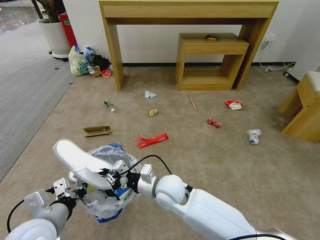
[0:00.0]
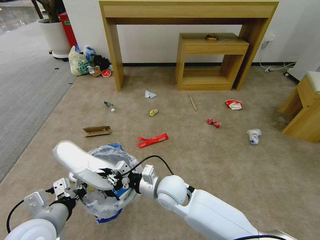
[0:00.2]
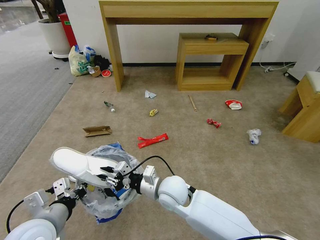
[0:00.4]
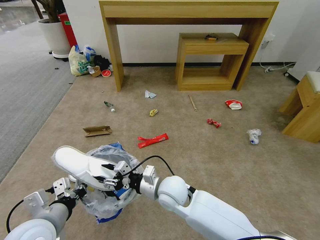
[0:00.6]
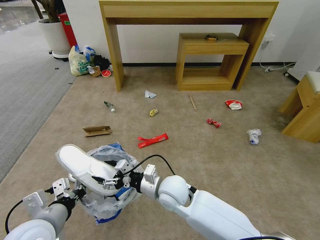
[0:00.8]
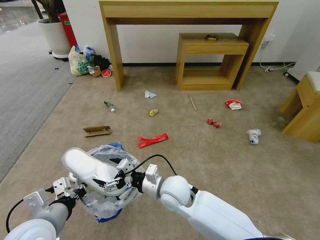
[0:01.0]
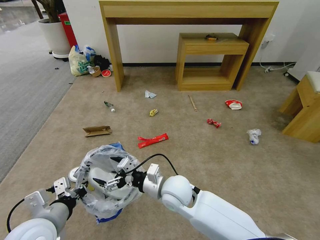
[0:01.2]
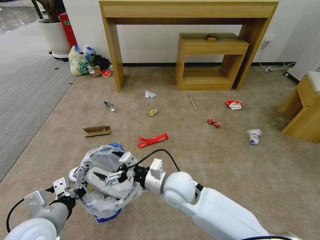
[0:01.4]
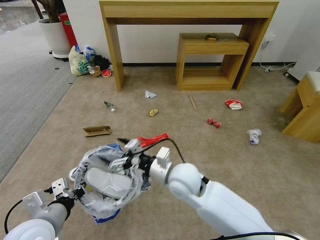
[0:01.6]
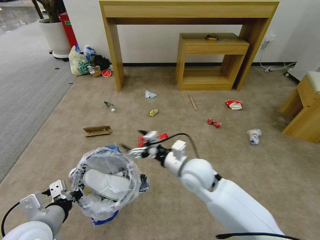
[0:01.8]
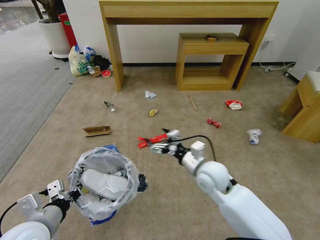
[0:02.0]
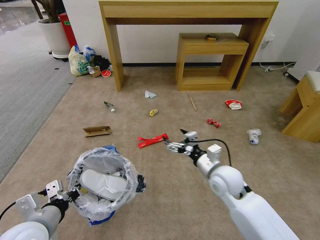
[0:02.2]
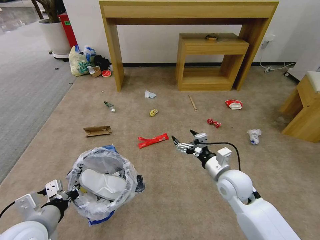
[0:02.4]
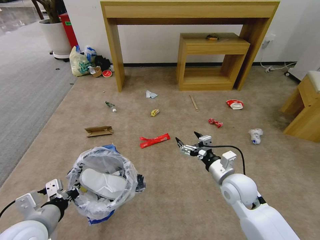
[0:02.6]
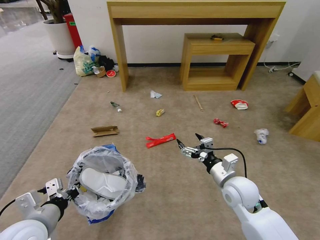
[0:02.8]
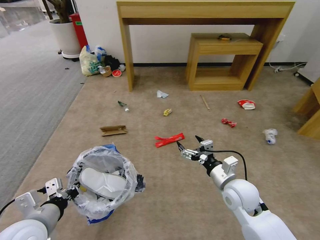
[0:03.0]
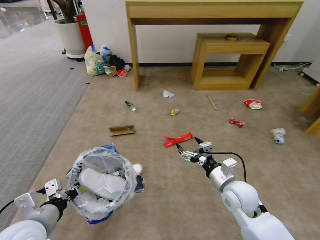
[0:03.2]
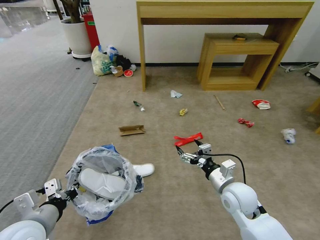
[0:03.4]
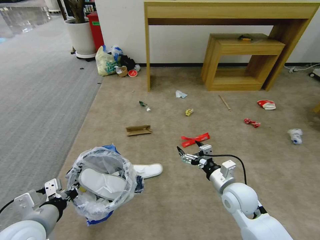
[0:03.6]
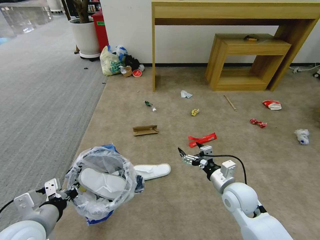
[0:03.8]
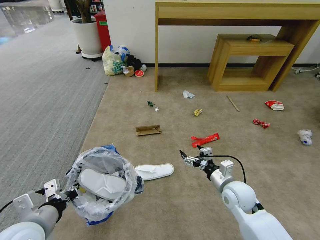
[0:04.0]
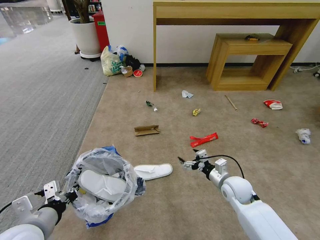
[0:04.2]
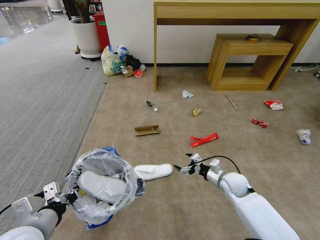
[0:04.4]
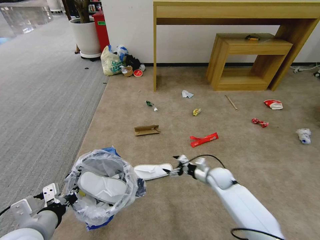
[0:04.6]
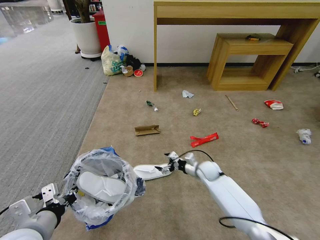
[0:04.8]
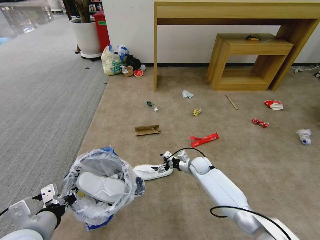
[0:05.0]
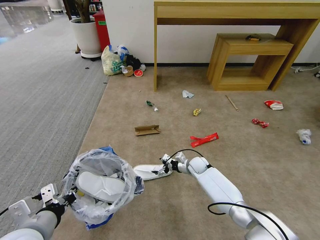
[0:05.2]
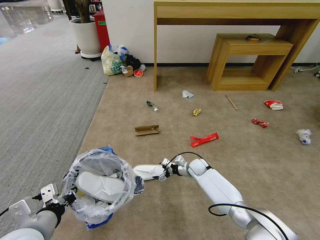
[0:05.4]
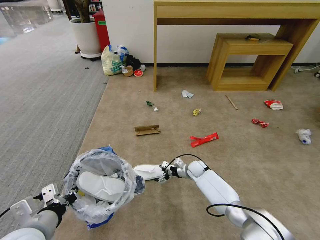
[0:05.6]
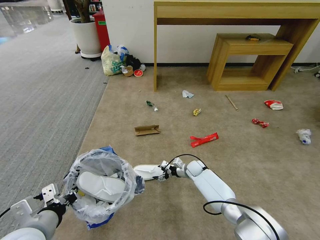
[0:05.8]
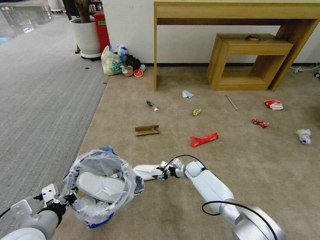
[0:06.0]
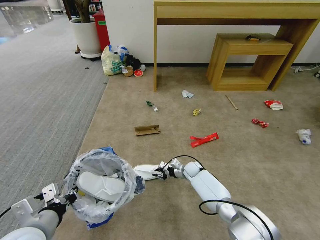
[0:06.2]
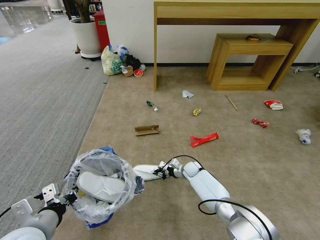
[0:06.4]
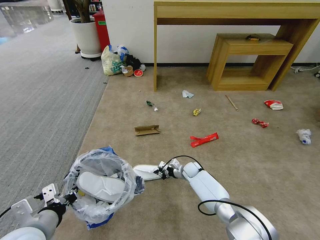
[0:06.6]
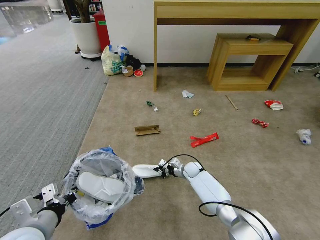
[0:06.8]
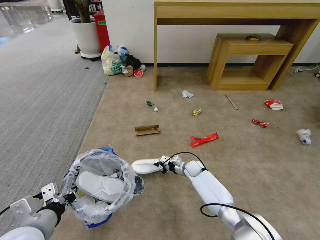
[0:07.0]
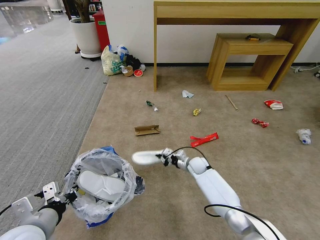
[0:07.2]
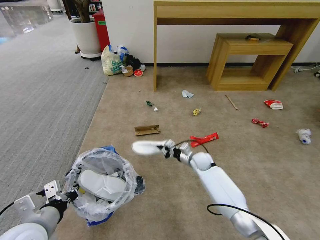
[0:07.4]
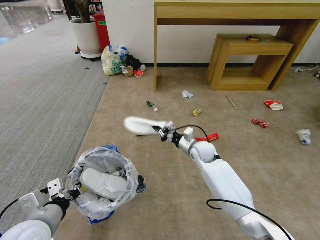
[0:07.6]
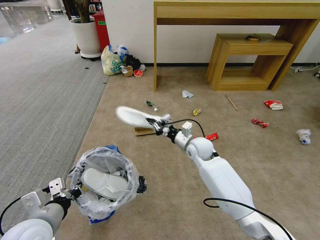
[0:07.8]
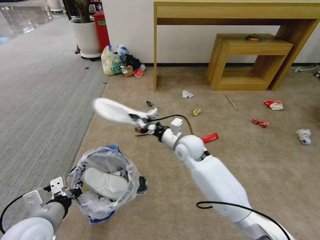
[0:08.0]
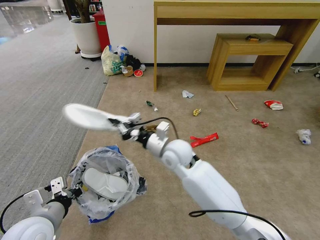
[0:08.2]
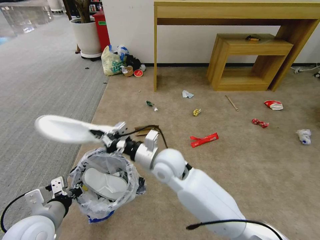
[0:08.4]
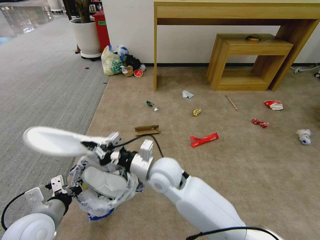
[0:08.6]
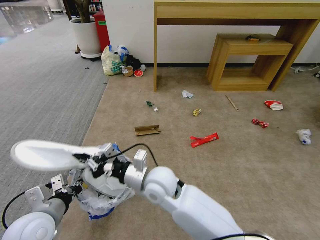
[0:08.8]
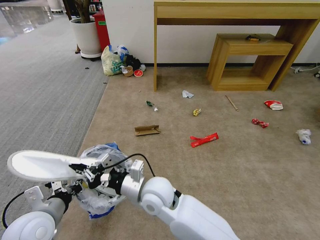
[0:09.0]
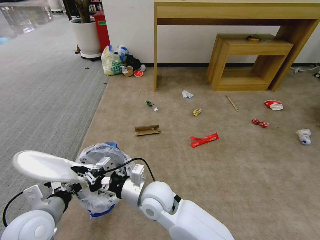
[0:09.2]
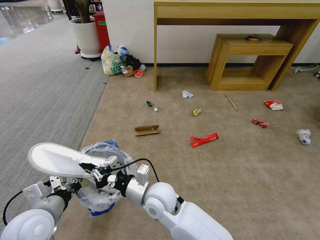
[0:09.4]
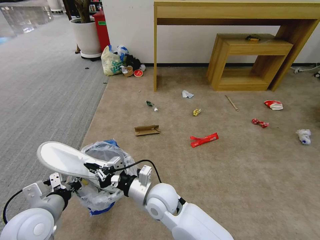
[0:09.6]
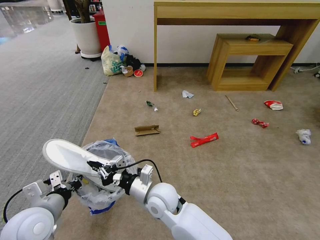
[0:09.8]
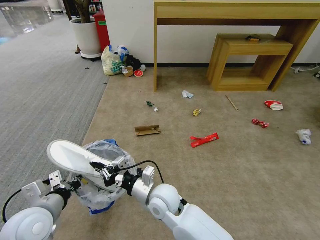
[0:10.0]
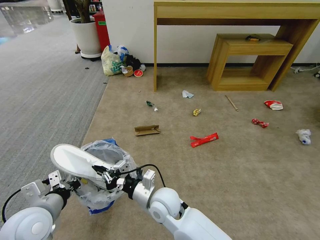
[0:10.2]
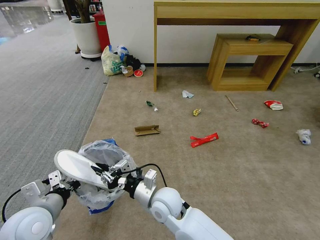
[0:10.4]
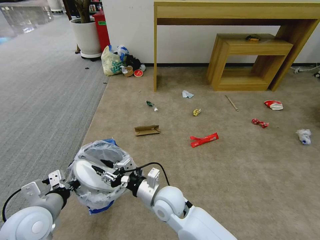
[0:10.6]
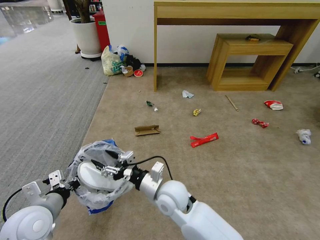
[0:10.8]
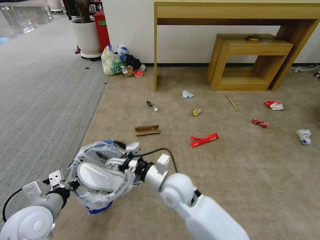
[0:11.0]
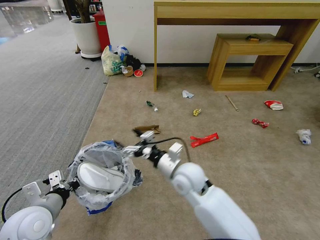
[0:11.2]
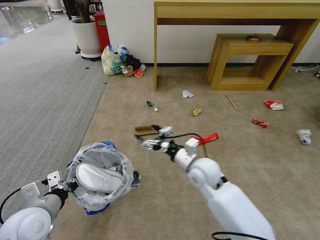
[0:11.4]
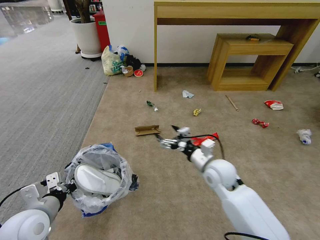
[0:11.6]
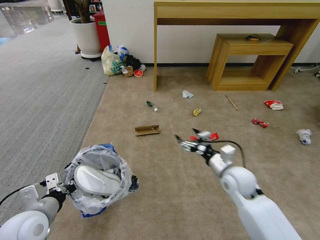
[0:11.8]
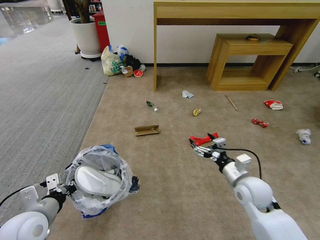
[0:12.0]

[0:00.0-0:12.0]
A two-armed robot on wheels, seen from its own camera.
Task of the whole recording: Pick up the trash bin and place the garbage on the floor into it.
0:00.0 to 0:01.6: The right gripper travels upward by roughly 5 cm, and opens its fingers.
0:01.6 to 0:03.0: The right gripper shifts approximately 20 cm to the right.
0:03.0 to 0:04.4: The right gripper heads downward and forward, covering approximately 15 cm.
0:04.4 to 0:06.0: The right gripper heads forward, downward and to the left, covering some 20 cm, and closes.
0:06.0 to 0:07.6: The right gripper is displaced upward by about 15 cm, and closes its fingers.
0:07.6 to 0:09.0: The right gripper goes some 30 cm backward, to the left and upward.
0:09.0 to 0:10.4: The right gripper shifts approximately 5 cm downward.
0:10.4 to 0:12.0: The right gripper travels to the right by roughly 30 cm, and opens up.

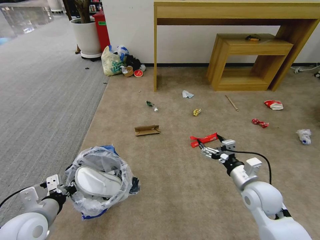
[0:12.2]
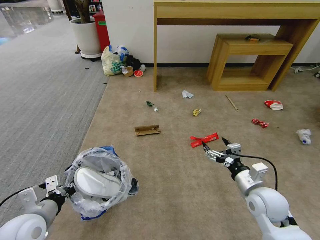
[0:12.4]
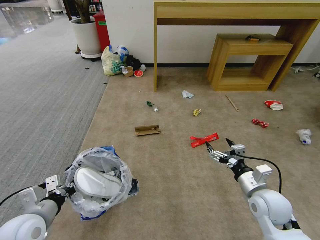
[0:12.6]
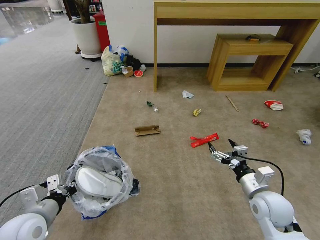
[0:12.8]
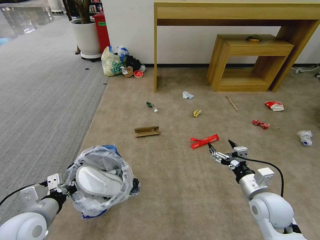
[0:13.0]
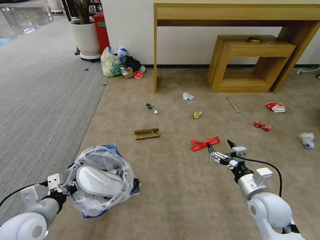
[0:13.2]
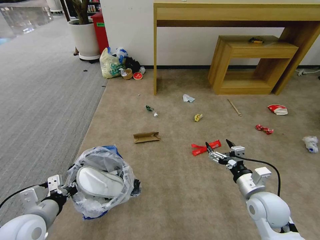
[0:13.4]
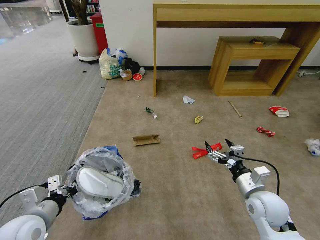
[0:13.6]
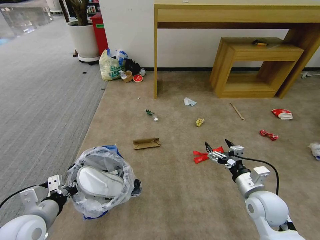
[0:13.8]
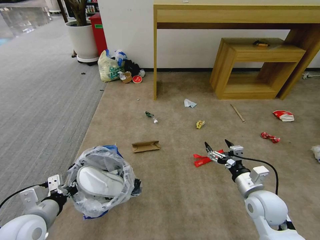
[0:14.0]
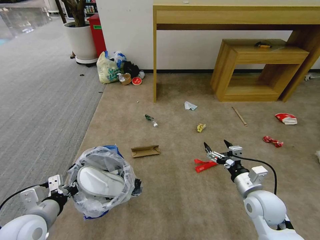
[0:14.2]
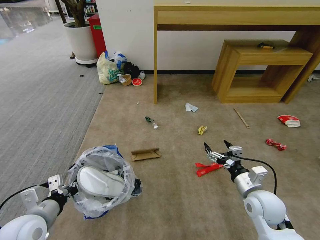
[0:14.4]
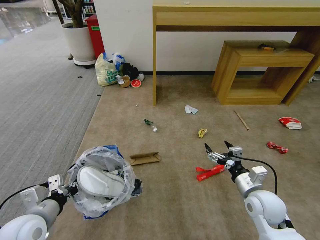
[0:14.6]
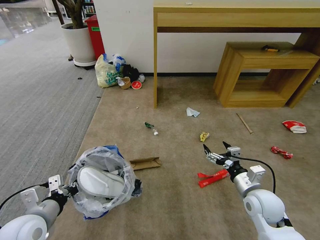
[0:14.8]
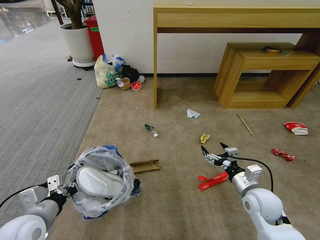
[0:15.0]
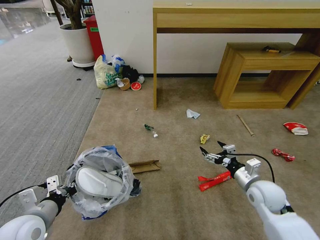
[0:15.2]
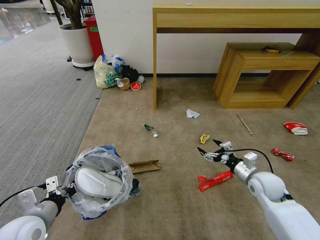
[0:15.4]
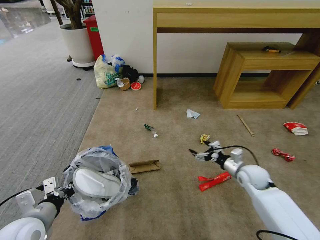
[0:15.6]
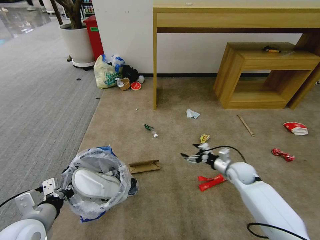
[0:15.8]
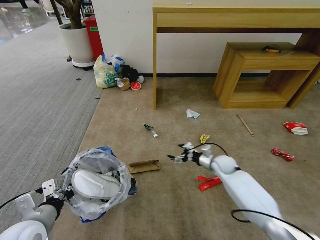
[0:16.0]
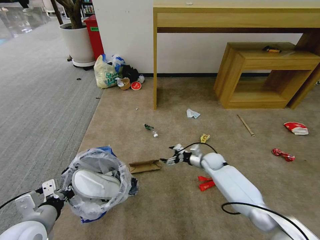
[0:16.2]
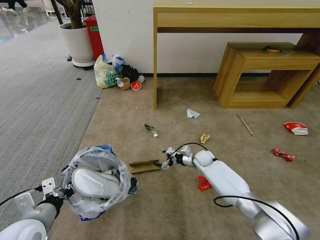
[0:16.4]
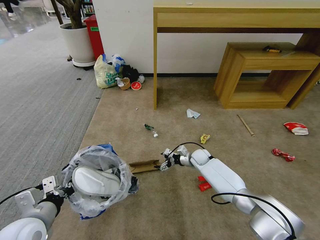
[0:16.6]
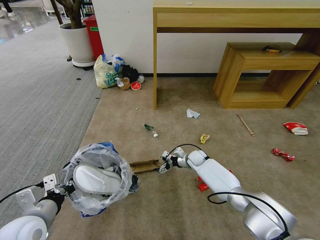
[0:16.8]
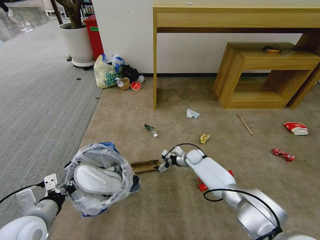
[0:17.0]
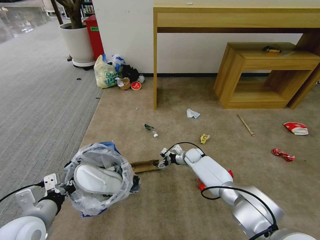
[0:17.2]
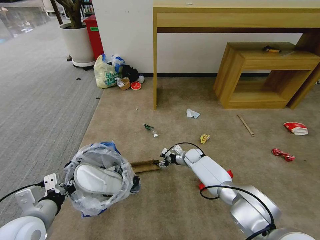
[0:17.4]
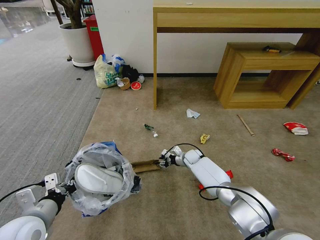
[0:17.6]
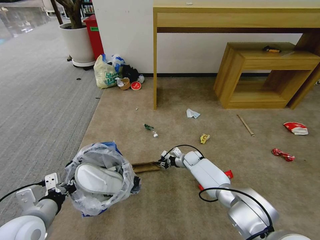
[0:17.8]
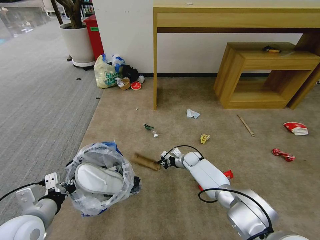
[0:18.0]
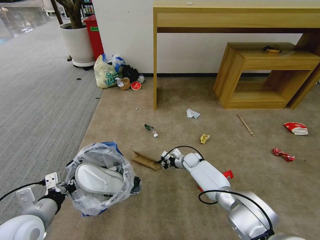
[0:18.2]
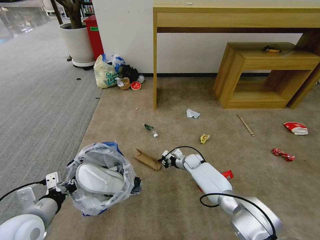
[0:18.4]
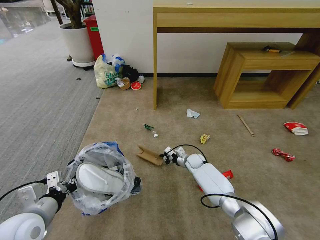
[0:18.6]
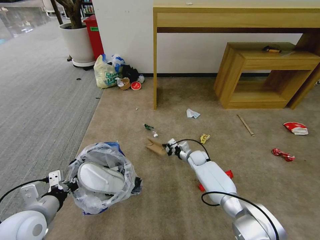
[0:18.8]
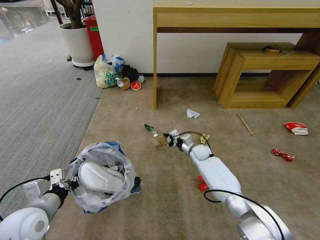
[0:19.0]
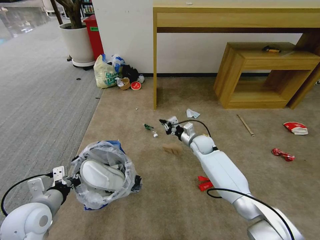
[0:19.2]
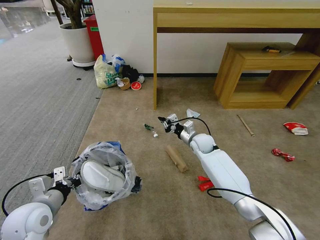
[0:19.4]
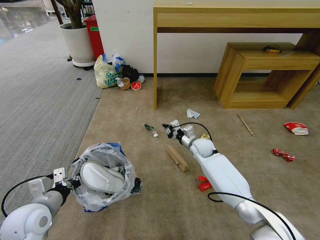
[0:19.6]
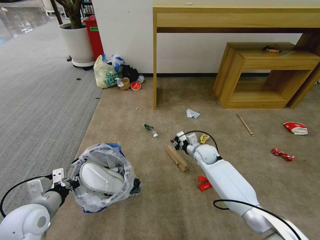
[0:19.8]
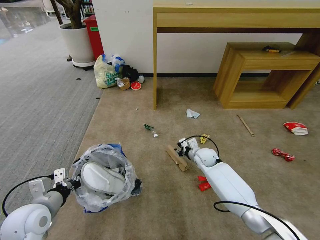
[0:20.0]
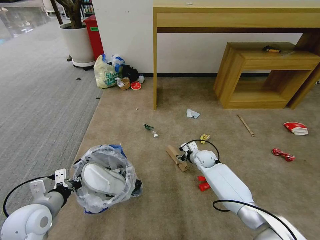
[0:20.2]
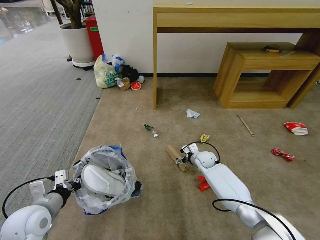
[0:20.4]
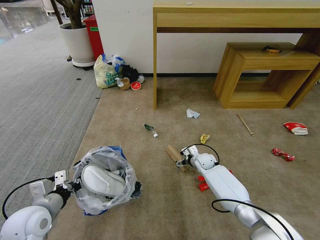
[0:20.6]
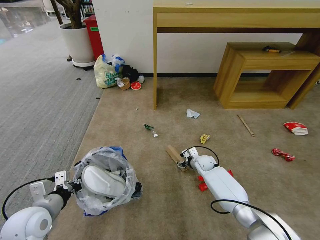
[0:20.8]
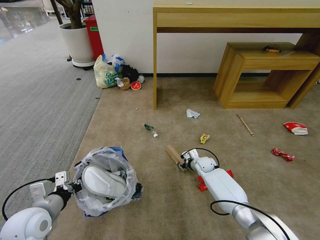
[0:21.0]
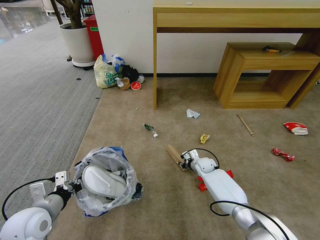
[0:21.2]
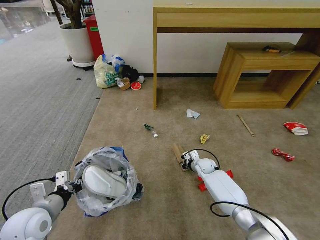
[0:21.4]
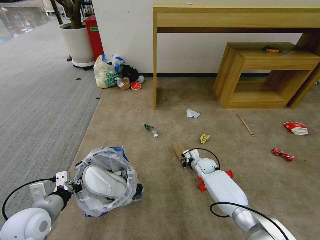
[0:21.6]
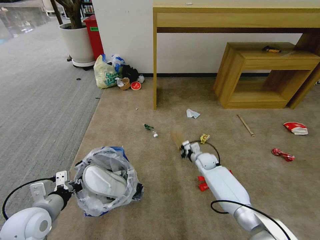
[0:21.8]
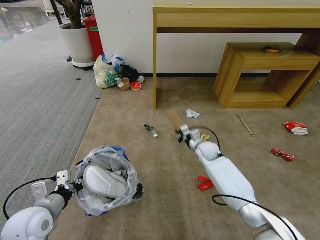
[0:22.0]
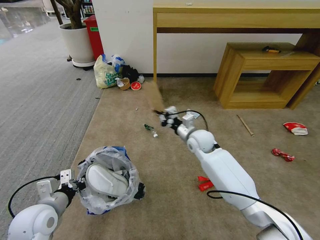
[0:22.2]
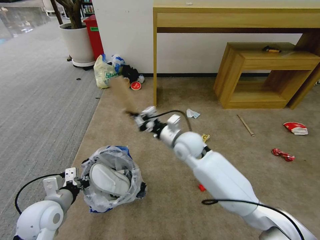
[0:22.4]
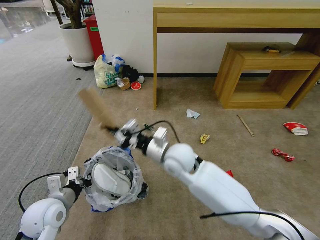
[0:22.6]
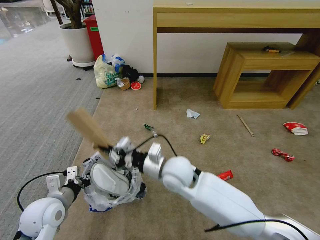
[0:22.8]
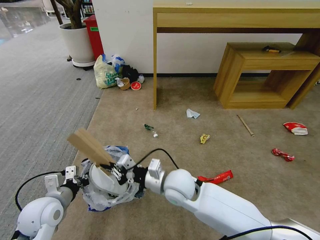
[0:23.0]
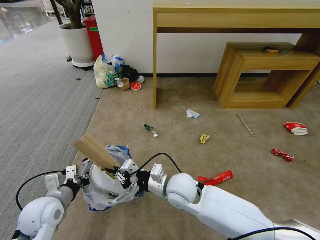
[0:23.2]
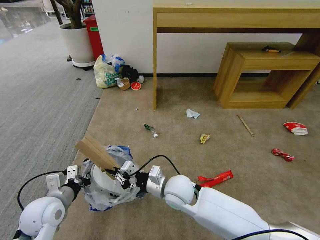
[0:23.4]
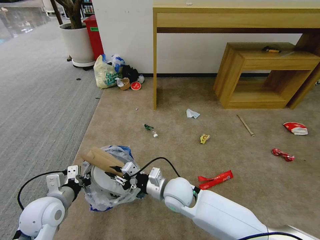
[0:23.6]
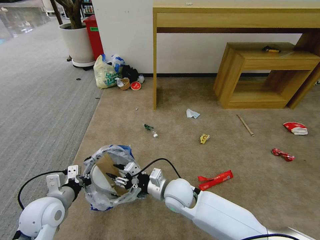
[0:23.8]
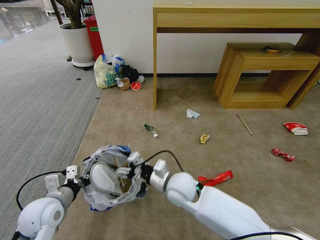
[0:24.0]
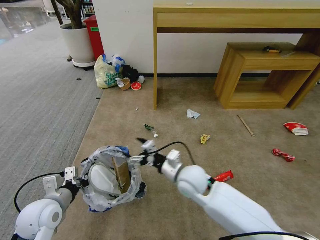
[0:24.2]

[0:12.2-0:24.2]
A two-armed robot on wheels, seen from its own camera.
Task of the whole recording: Pick up the trash bin and place the garbage on the floor into it.
0:13.8 to 0:15.2: The right gripper shifts by some 5 cm.
0:15.2 to 0:16.6: The right gripper heads forward, to the left and downward, covering roughly 30 cm.
0:16.6 to 0:18.2: The right gripper closes up.
0:18.2 to 0:19.8: The right gripper goes some 10 cm upward.
0:19.8 to 0:21.2: The right gripper heads downward, covering roughly 10 cm, and opens and closes again.
0:21.2 to 0:22.6: The right gripper is displaced upward, to the left and backward by roughly 30 cm.
0:22.6 to 0:24.2: The right gripper goes about 10 cm downward and backward, and opens.
